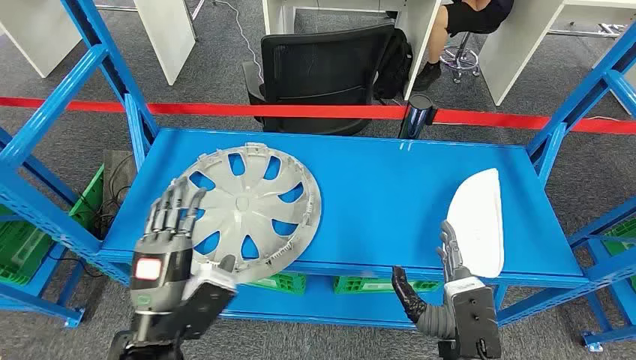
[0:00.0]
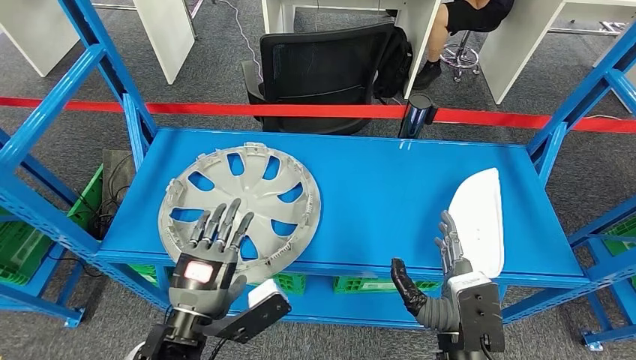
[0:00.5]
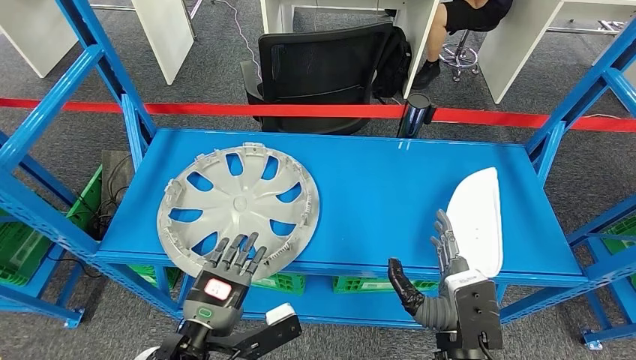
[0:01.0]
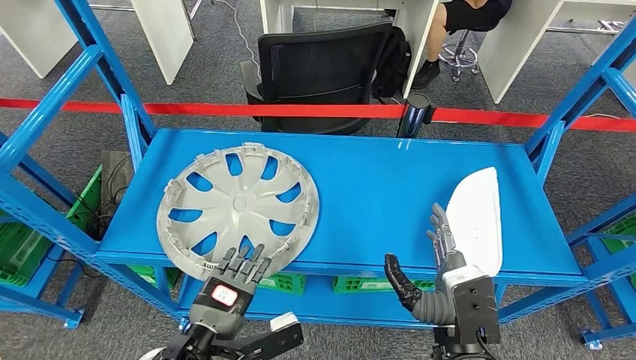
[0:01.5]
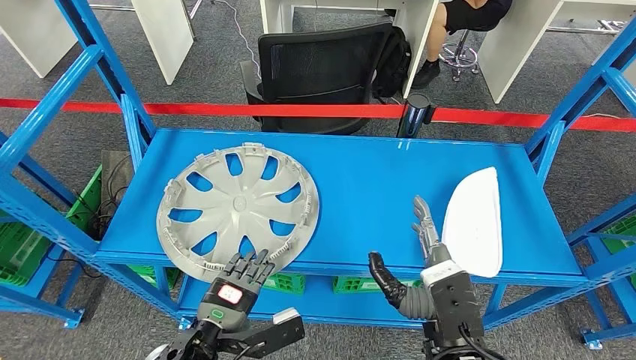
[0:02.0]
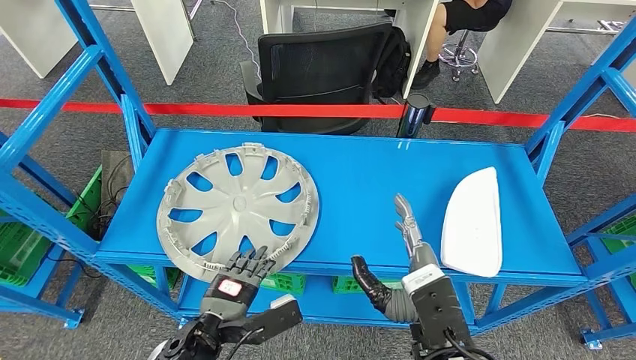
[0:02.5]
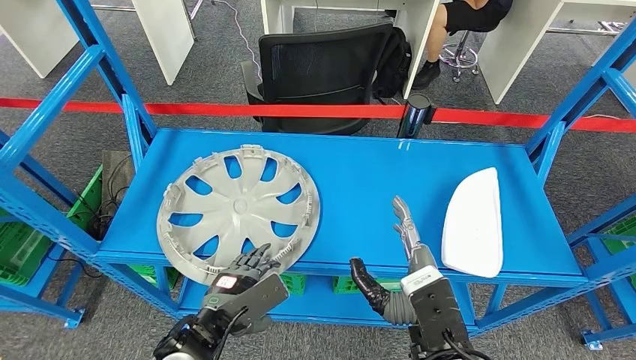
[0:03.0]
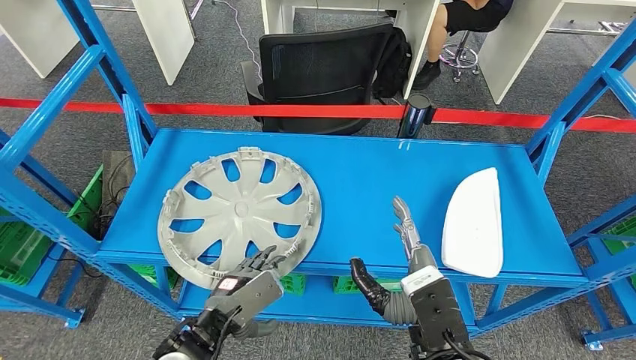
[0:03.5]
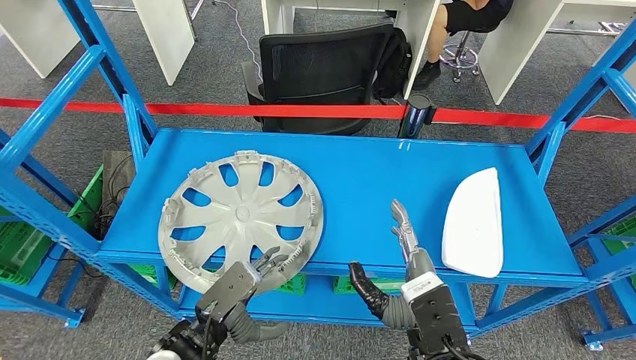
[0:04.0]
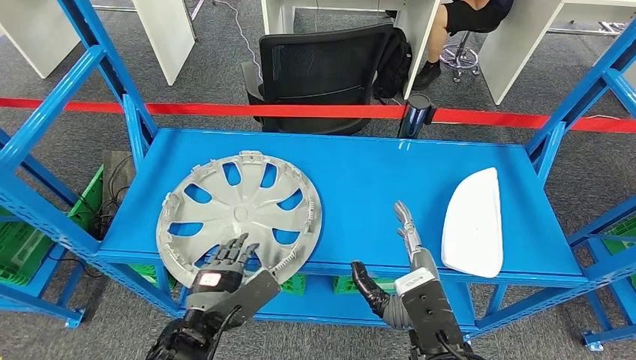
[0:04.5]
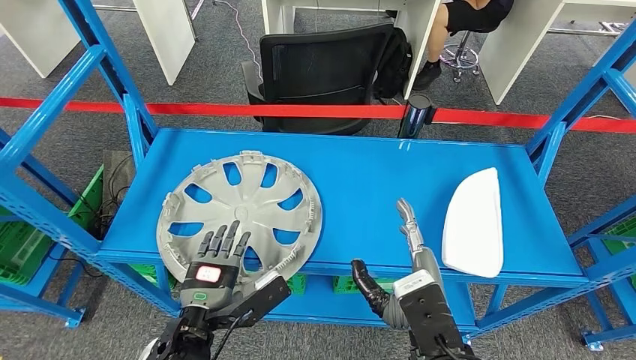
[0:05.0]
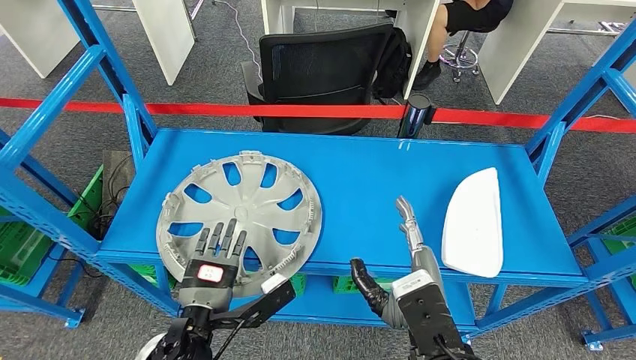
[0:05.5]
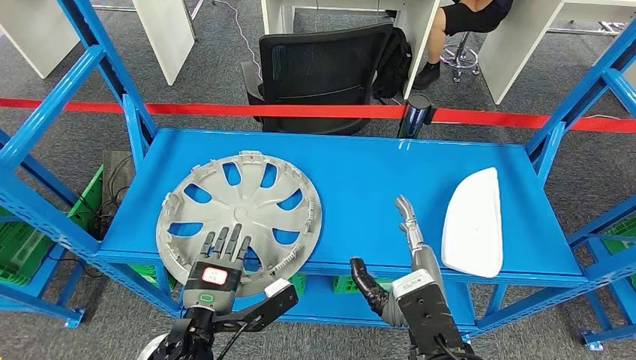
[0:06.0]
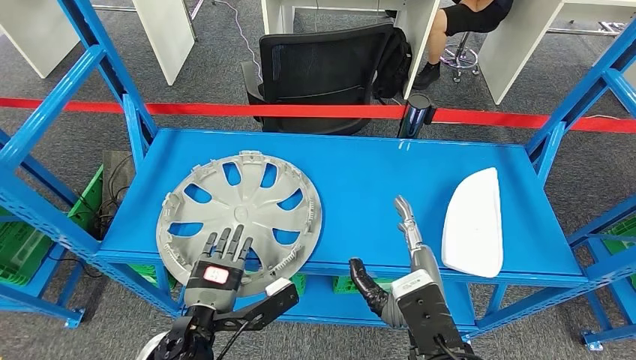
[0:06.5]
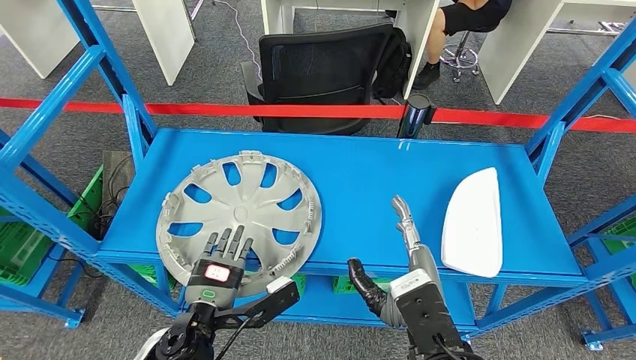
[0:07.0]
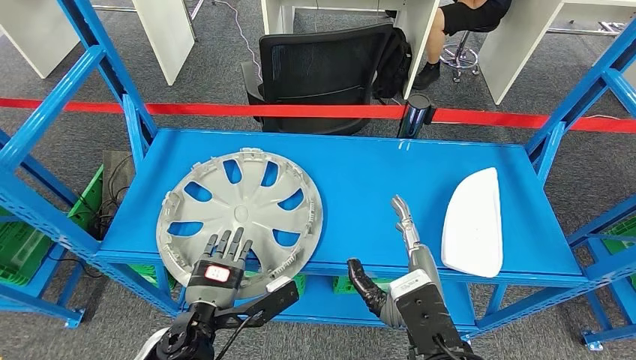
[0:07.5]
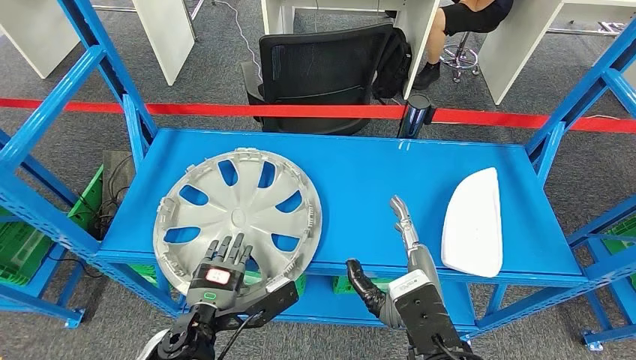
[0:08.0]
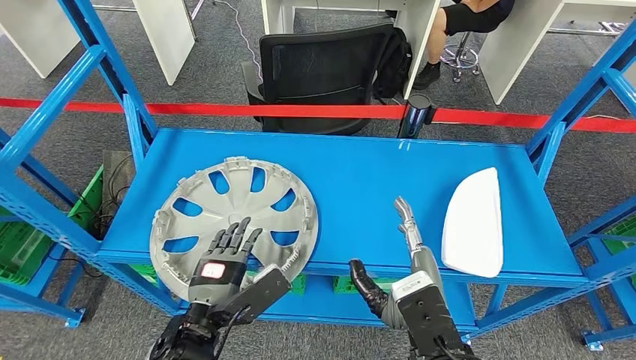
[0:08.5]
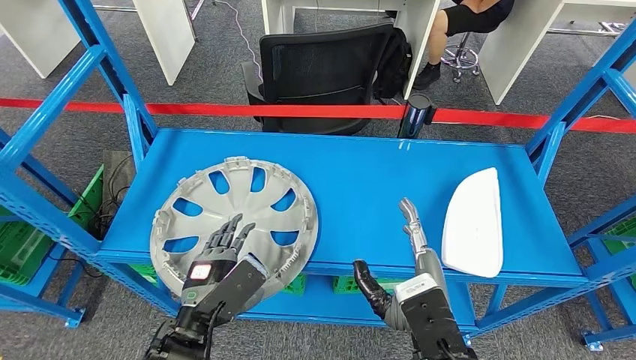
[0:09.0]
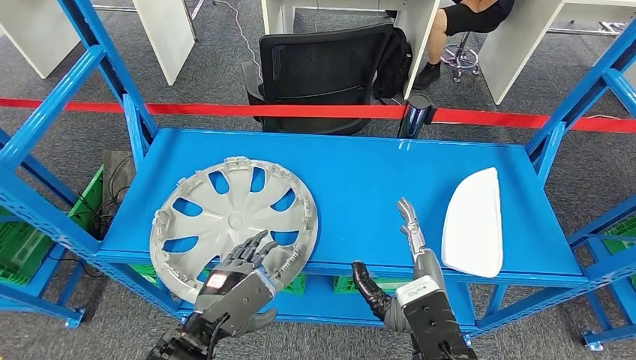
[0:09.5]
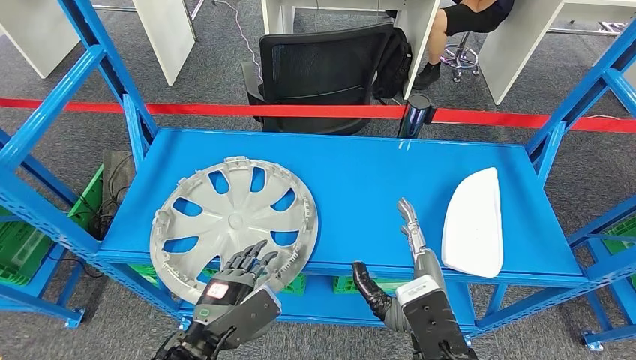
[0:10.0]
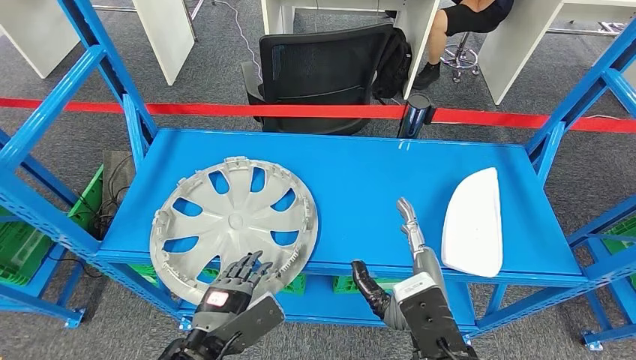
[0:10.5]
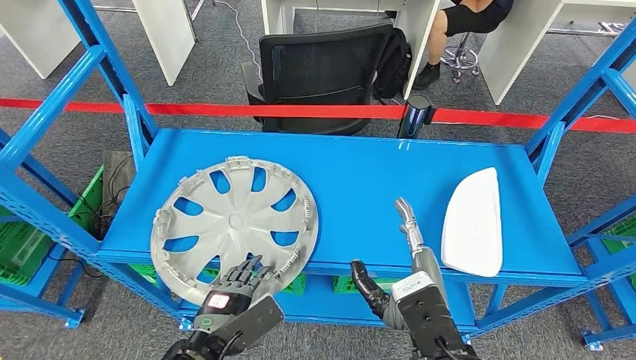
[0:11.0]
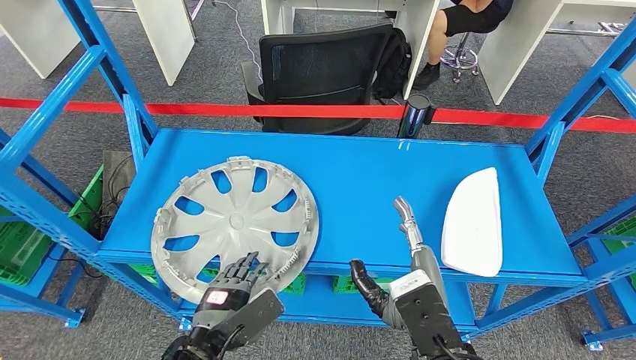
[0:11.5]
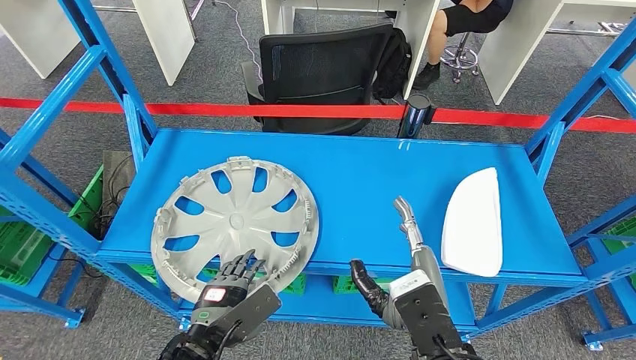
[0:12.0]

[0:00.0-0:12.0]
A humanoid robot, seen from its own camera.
0:06.0 to 0:08.0: There are only small adjustments of the hands.
0:10.0 to 0:12.0: The hands stay close to where they were, moving slightly.

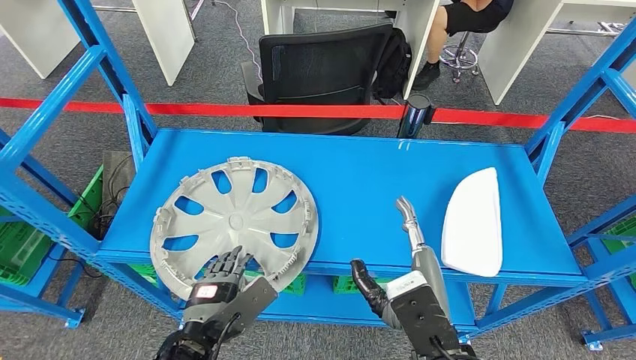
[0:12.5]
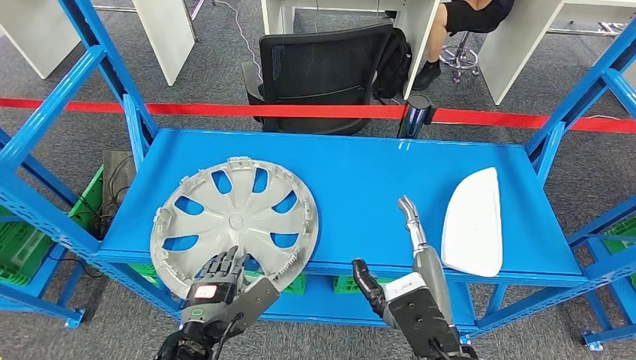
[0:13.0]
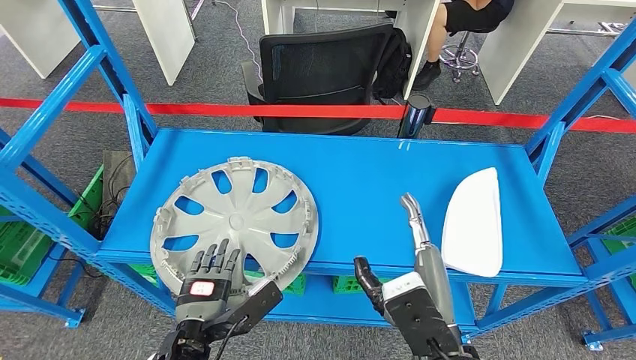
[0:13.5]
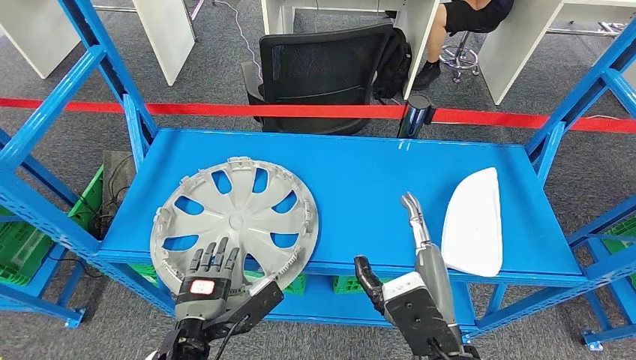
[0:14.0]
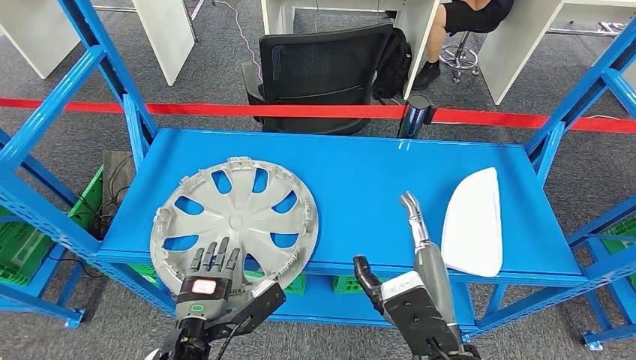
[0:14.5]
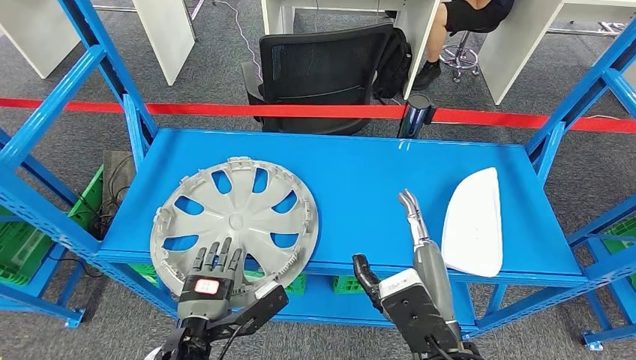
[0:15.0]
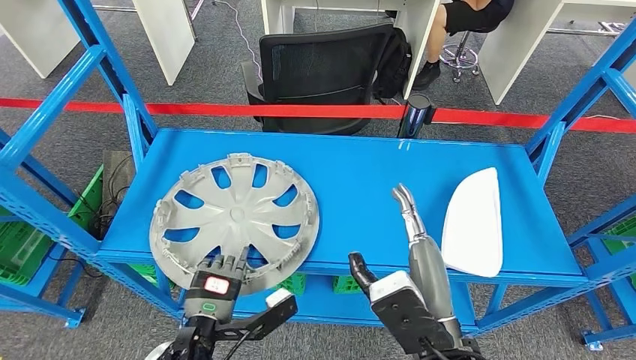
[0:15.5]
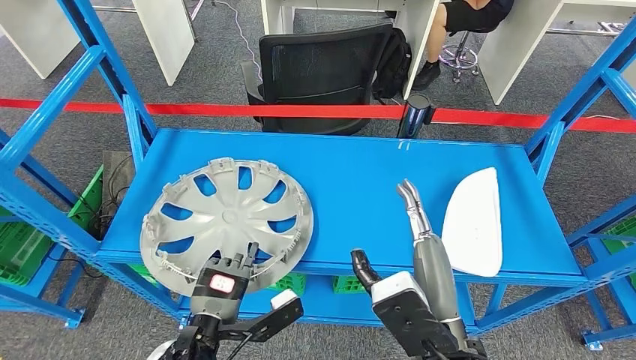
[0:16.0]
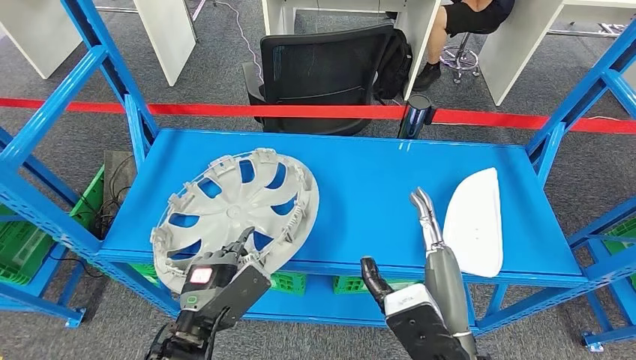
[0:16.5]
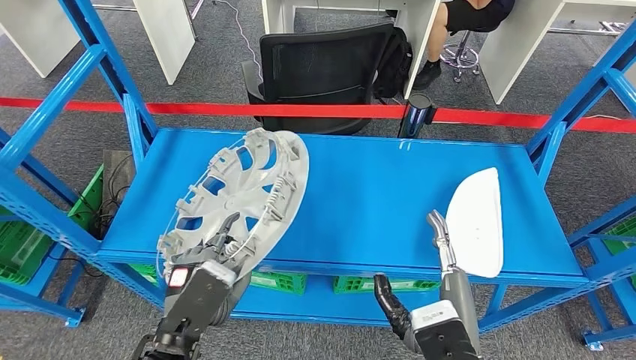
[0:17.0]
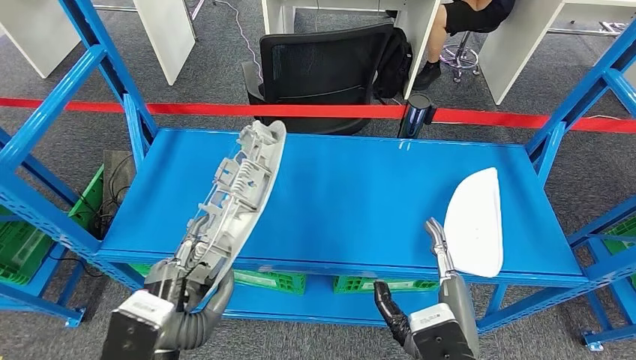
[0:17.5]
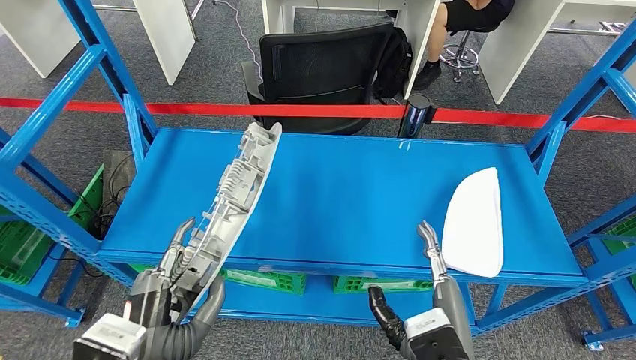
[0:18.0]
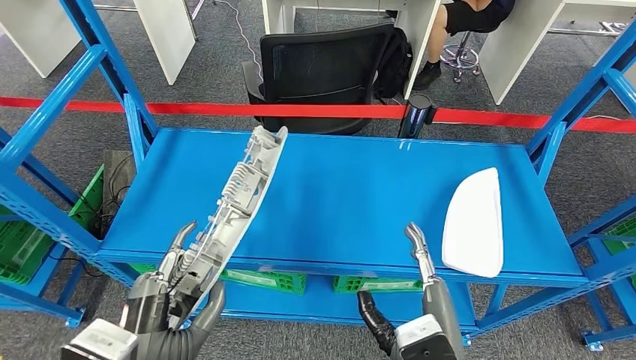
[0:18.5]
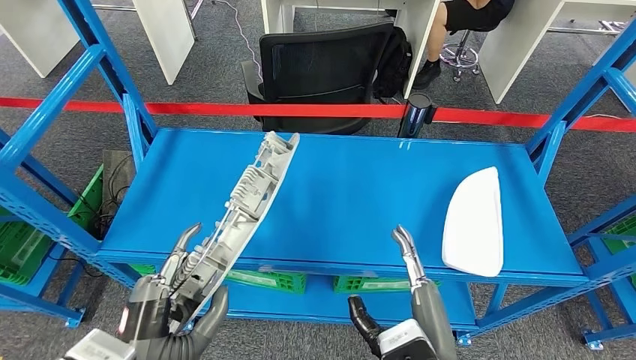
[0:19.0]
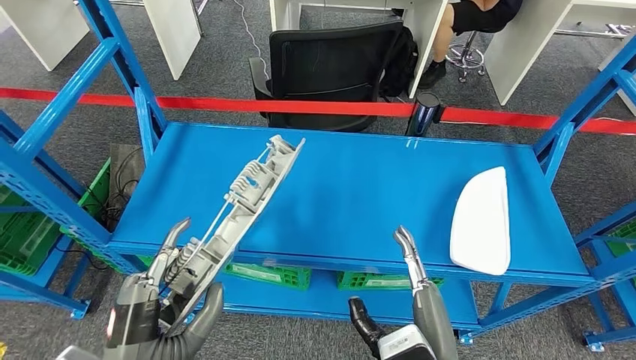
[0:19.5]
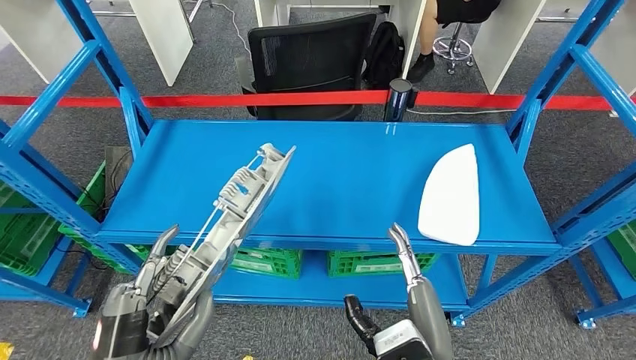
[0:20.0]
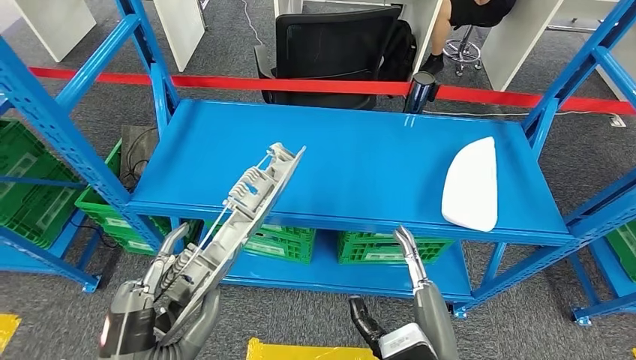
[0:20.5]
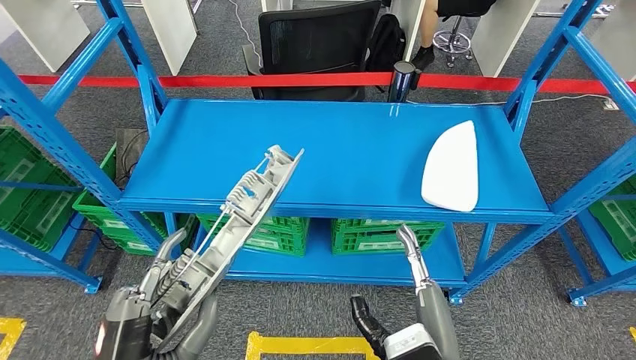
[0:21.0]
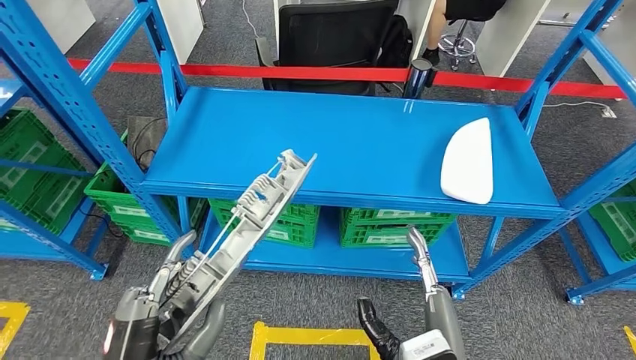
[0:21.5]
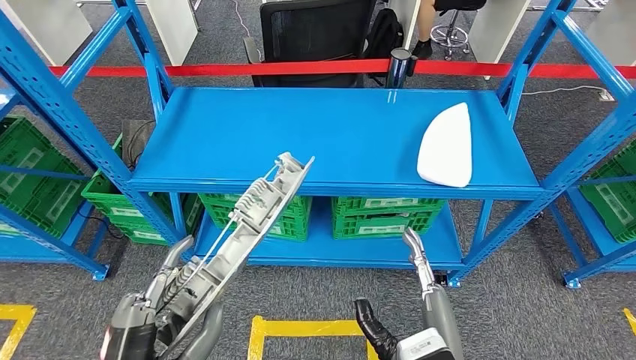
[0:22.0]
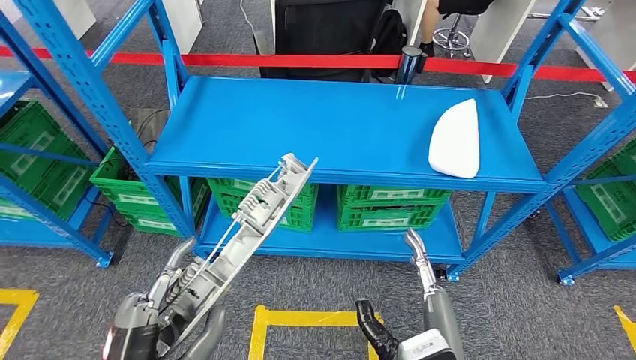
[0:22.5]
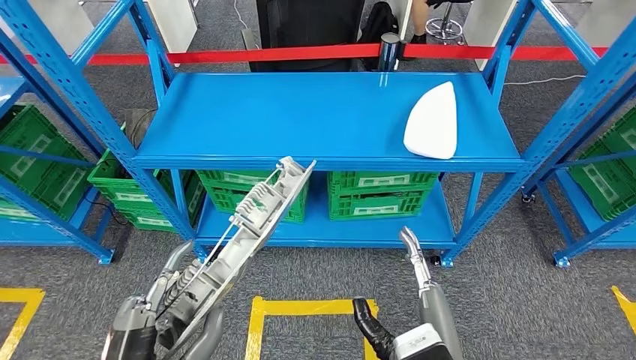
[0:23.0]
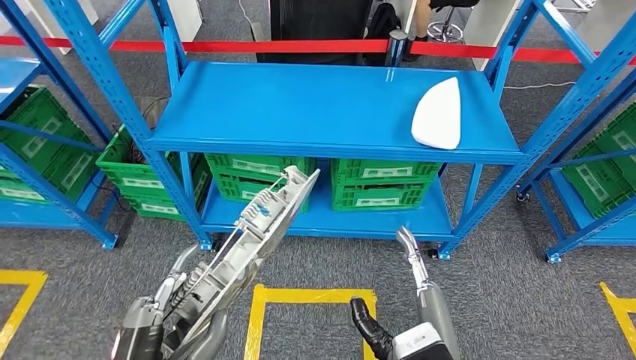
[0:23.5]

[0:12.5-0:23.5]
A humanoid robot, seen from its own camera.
Step, 0:12.5 to 0:17.5: Take small components from the rack.
0:14.5 to 0:16.0: There are only small adjustments of the hands.
